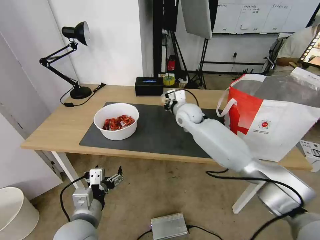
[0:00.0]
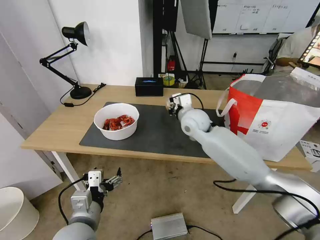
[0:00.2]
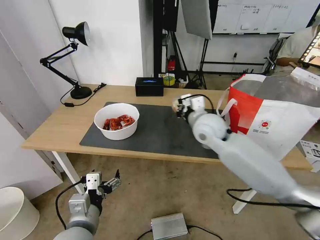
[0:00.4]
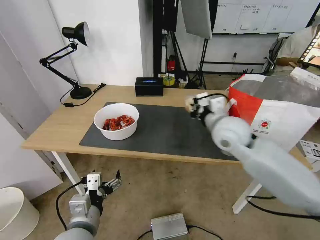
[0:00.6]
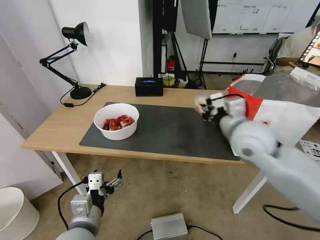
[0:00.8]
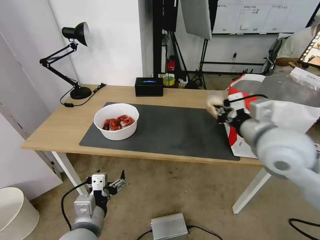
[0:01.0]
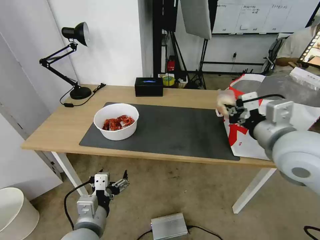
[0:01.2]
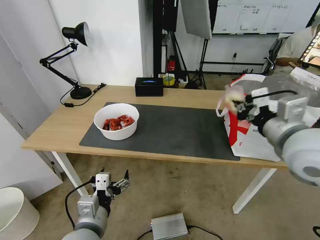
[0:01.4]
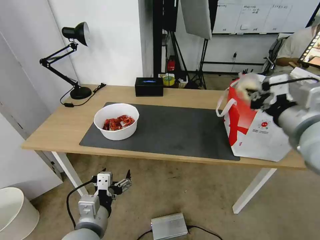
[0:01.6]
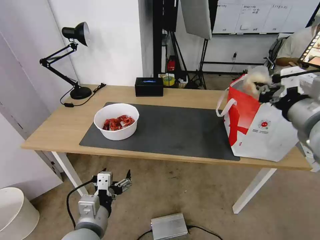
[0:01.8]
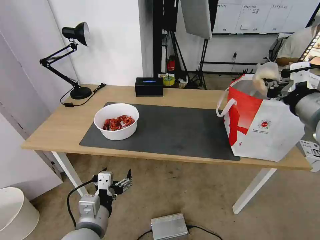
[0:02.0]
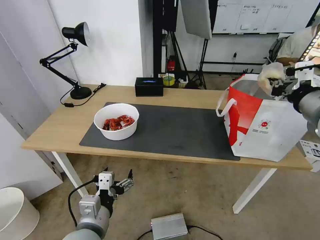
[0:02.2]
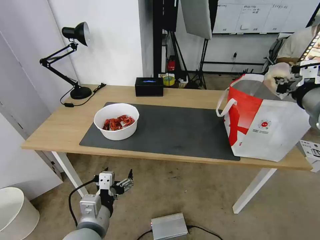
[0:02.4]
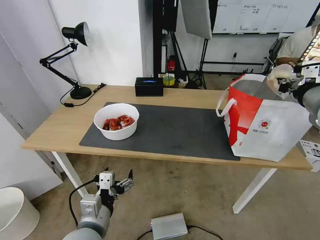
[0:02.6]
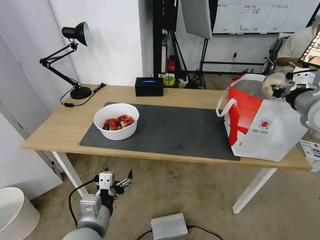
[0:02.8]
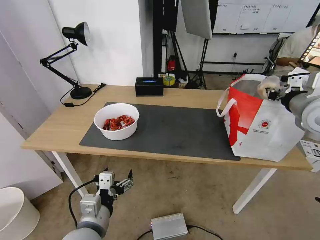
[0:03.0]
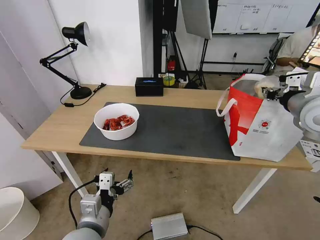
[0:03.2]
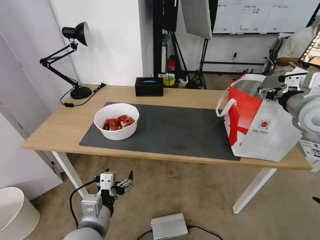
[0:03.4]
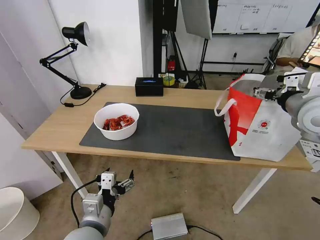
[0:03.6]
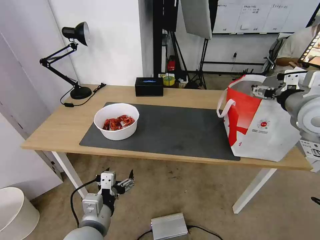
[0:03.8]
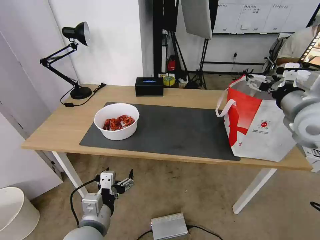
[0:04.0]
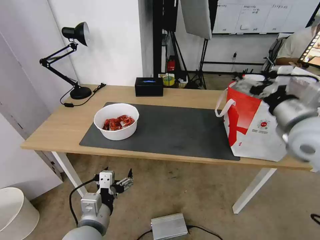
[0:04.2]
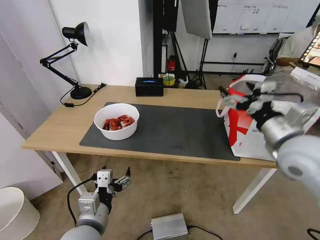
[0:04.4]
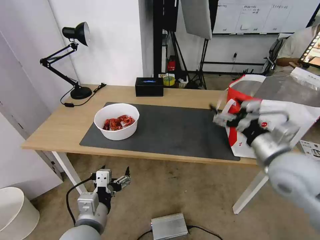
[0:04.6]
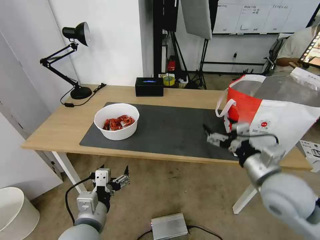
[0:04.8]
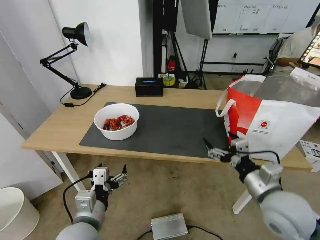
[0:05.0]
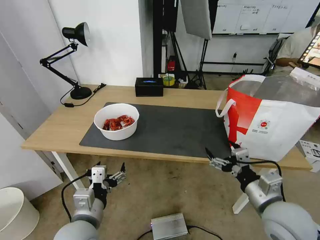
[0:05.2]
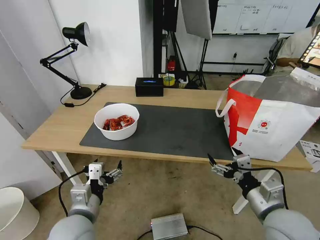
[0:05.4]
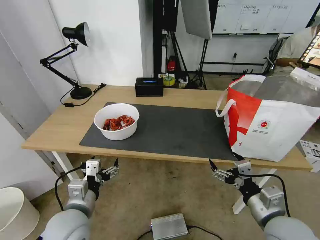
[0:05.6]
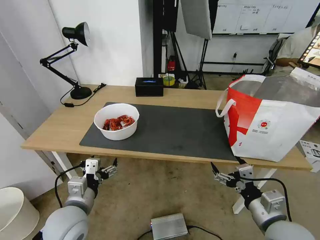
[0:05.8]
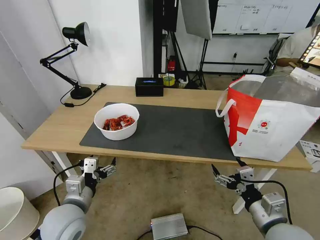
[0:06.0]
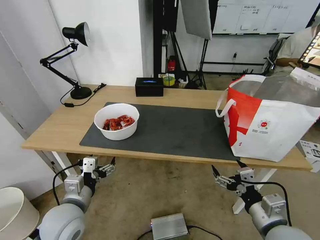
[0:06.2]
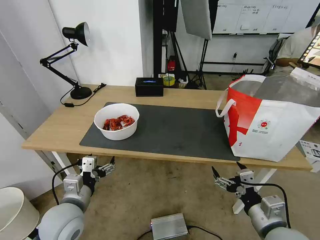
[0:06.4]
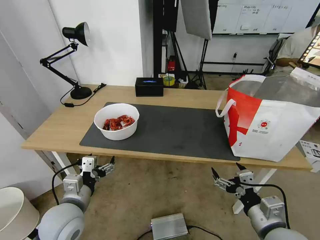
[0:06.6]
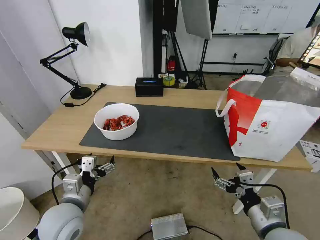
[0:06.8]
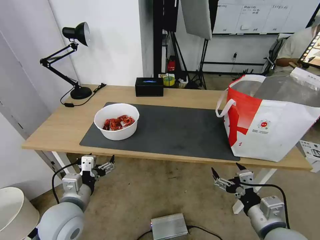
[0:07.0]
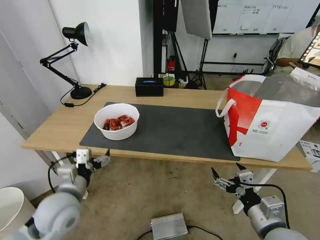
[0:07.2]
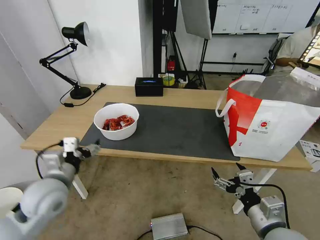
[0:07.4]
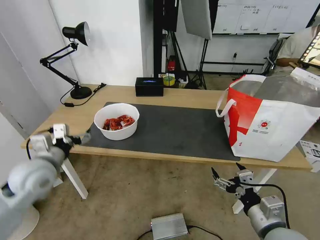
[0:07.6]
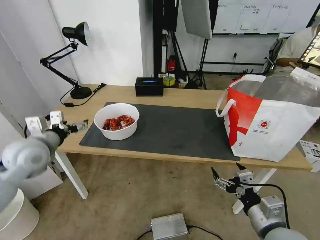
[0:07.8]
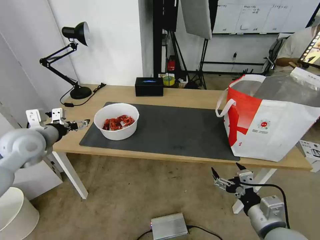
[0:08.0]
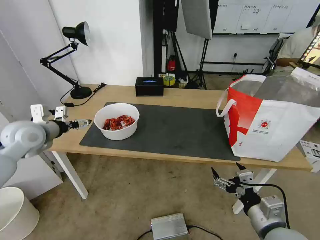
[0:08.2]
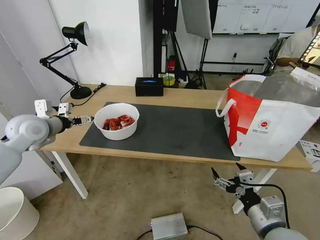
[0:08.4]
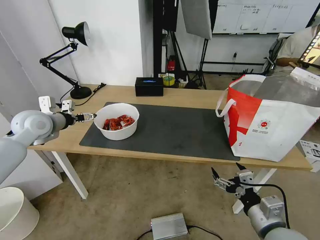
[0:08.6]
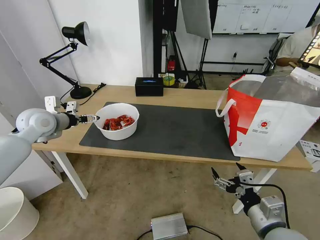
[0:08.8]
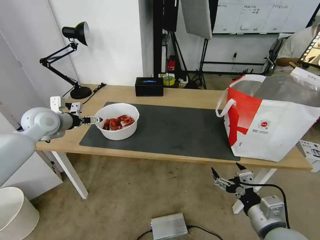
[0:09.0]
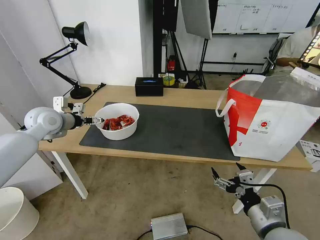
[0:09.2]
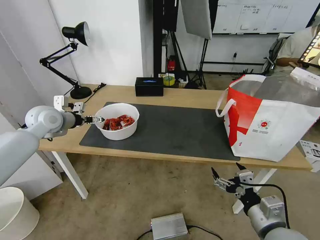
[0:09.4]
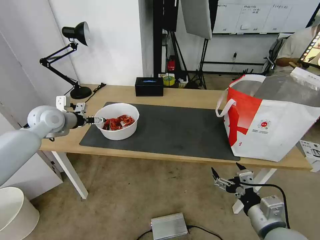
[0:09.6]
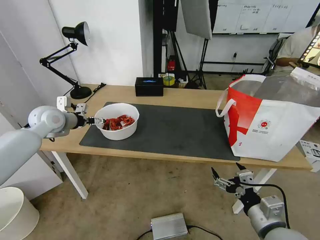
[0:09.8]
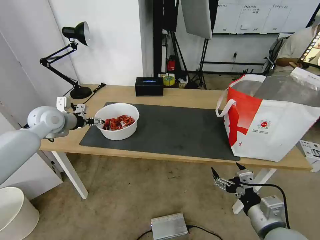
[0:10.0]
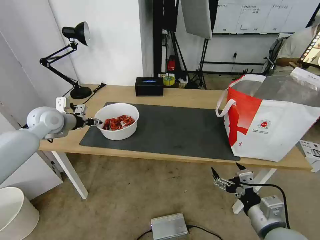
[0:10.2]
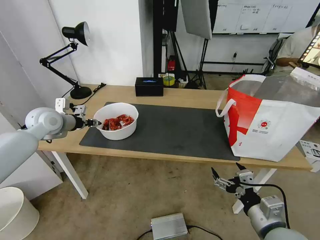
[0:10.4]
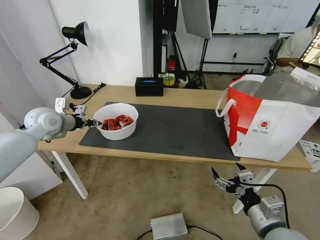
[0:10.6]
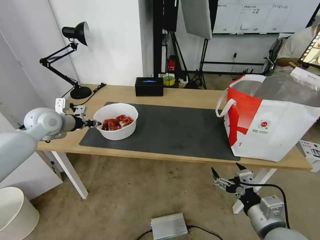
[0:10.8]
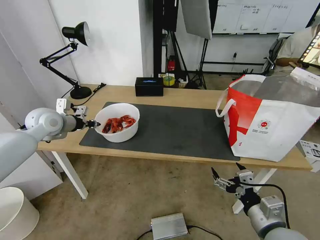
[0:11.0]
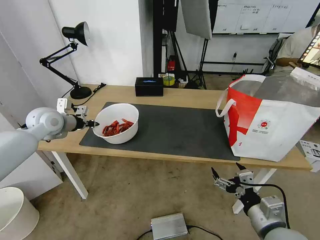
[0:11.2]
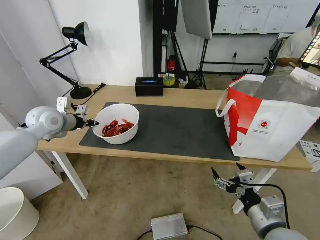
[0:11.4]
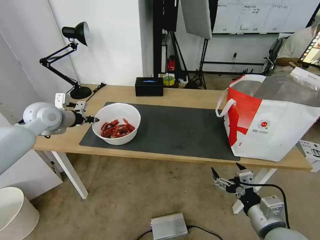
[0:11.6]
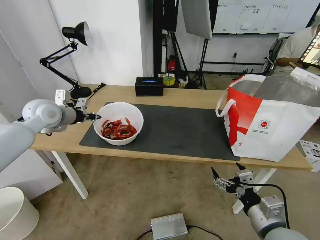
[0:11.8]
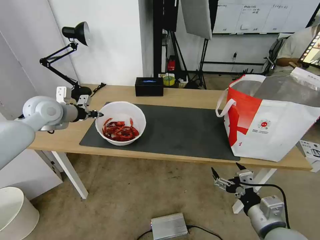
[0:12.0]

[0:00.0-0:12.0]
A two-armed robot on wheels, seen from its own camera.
Task of the whole recording: Pick up the trash from the table and place it into the takeout bag.
0:00.0 to 0:01.6: The right gripper travels backward, to the right and upward by some 35 cm.
0:01.6 to 0:03.0: The right gripper moves forward and to the right, roughly 15 cm.
0:03.0 to 0:04.4: The right gripper is displaced backward, to the left and downward by about 15 cm, and opens up.
0:04.4 to 0:06.0: The left gripper heads to the left and forward, covering about 10 cm. The right gripper shifts some 20 cm downward and backward.
0:06.0 to 0:07.6: The left gripper moves upward, forward and to the left, about 10 cm.
0:07.6 to 0:09.0: The left gripper travels forward by roughly 20 cm.
0:09.0 to 0:10.4: The left gripper closes.
0:10.4 to 0:12.0: The grippers make only small movements.

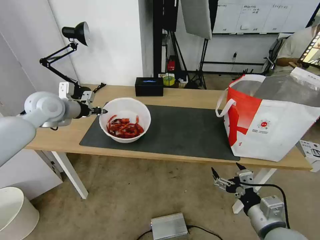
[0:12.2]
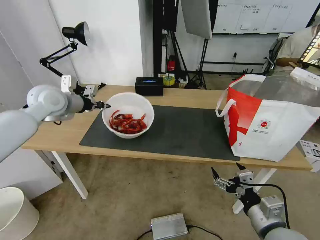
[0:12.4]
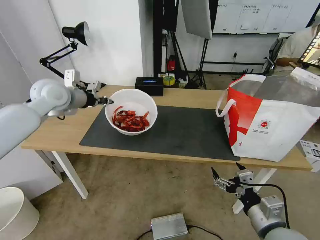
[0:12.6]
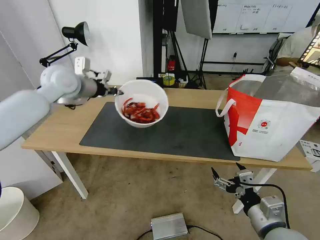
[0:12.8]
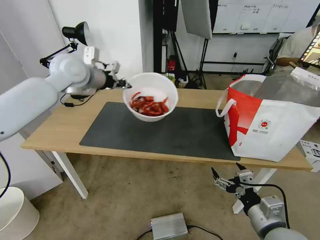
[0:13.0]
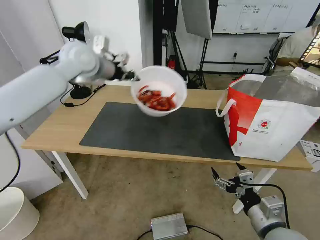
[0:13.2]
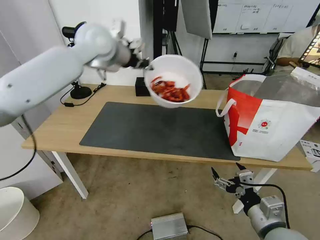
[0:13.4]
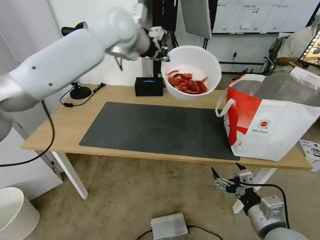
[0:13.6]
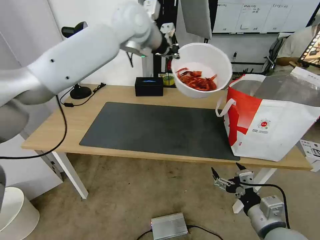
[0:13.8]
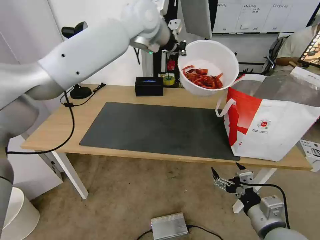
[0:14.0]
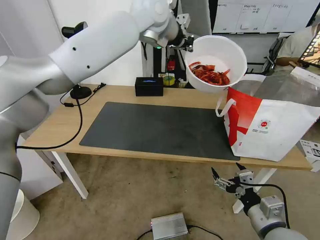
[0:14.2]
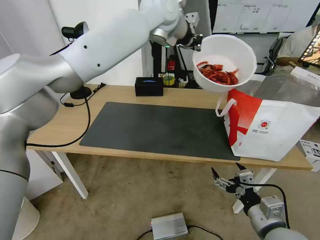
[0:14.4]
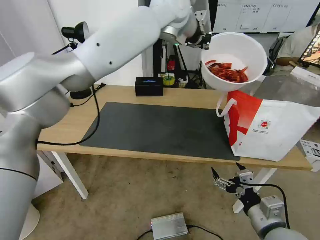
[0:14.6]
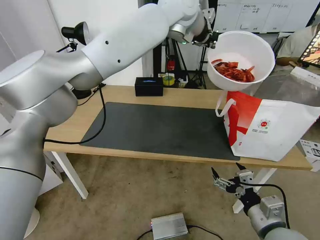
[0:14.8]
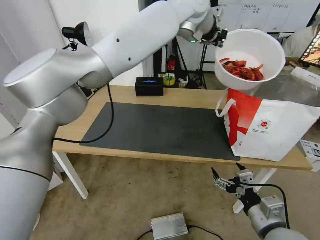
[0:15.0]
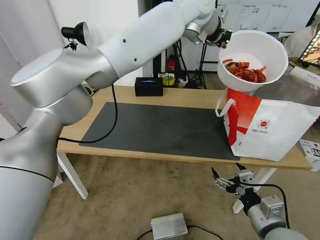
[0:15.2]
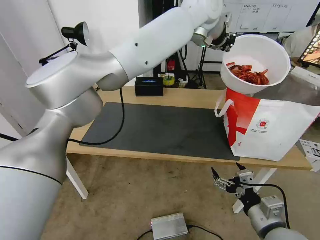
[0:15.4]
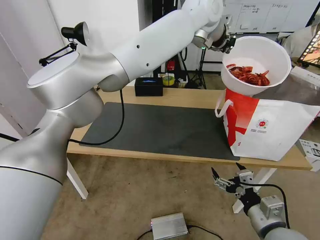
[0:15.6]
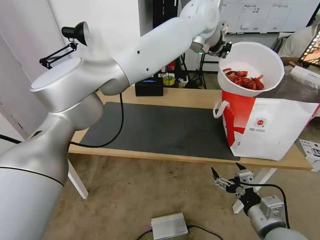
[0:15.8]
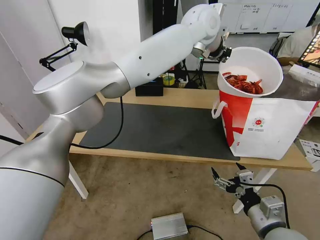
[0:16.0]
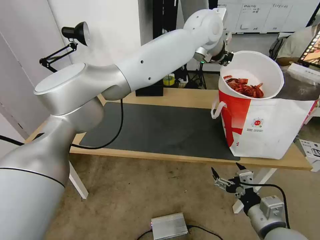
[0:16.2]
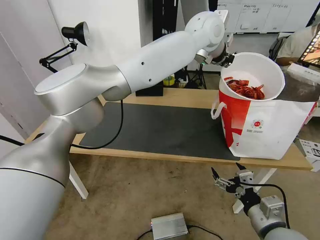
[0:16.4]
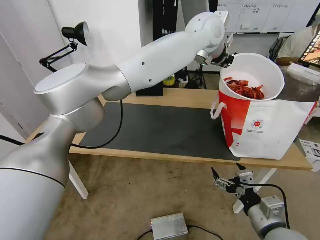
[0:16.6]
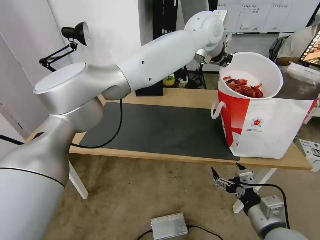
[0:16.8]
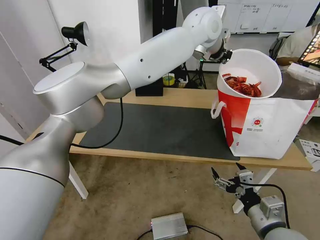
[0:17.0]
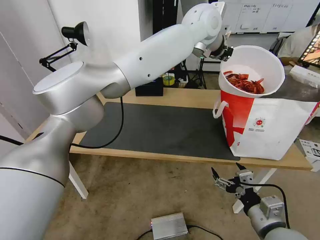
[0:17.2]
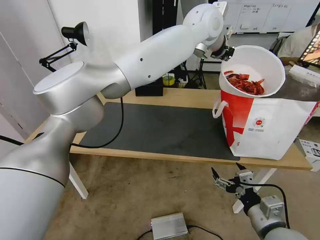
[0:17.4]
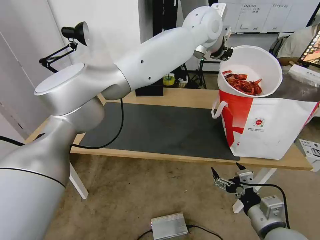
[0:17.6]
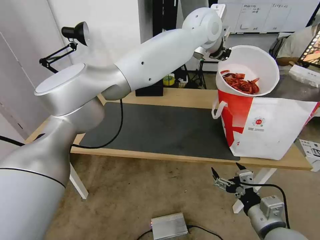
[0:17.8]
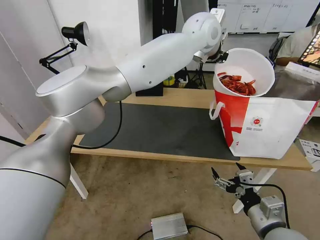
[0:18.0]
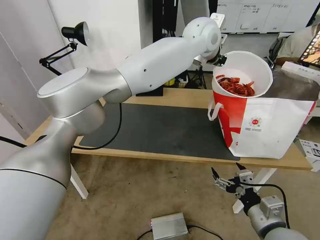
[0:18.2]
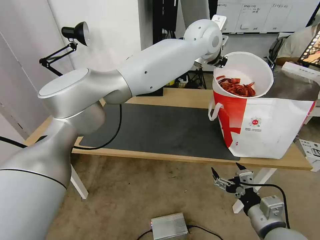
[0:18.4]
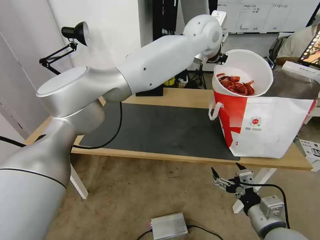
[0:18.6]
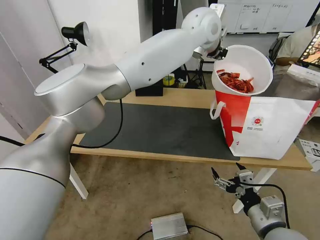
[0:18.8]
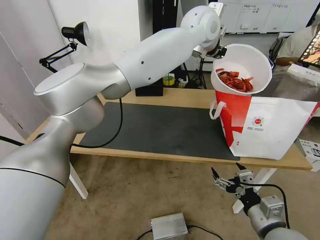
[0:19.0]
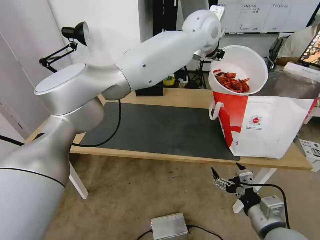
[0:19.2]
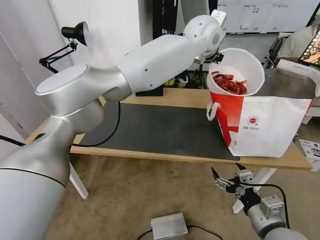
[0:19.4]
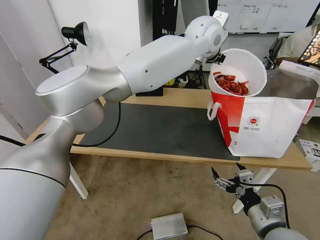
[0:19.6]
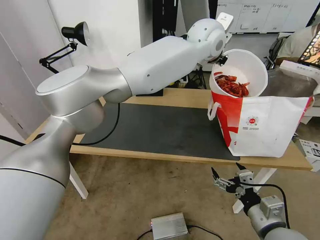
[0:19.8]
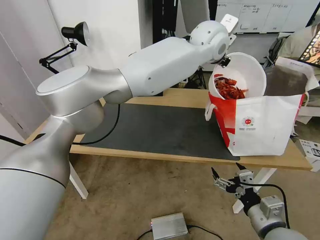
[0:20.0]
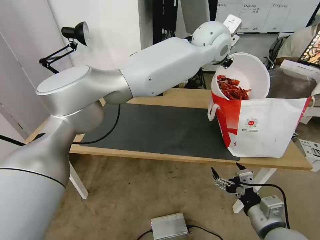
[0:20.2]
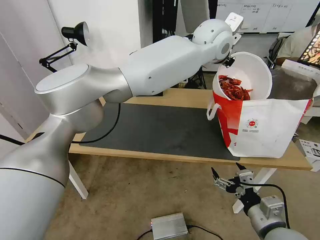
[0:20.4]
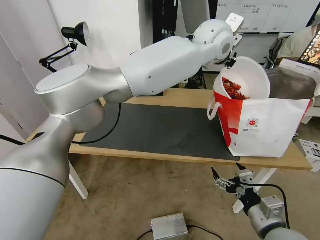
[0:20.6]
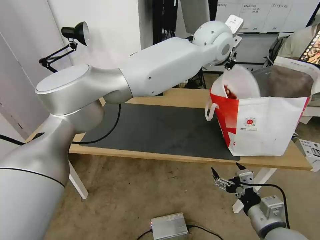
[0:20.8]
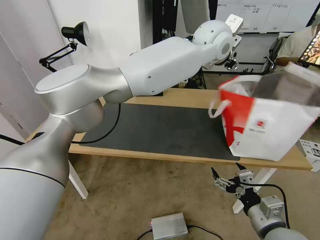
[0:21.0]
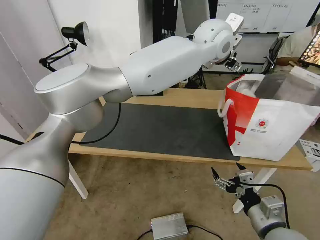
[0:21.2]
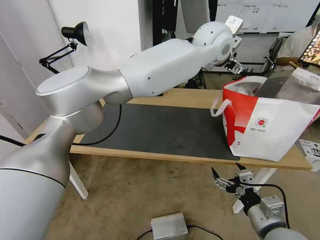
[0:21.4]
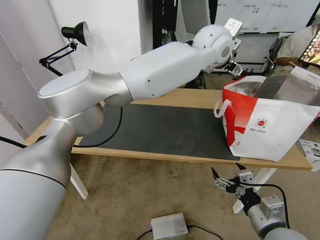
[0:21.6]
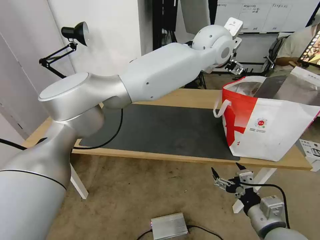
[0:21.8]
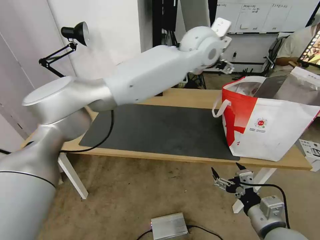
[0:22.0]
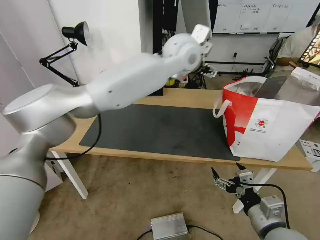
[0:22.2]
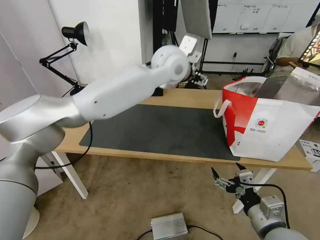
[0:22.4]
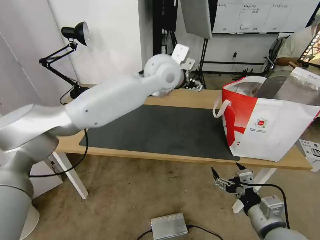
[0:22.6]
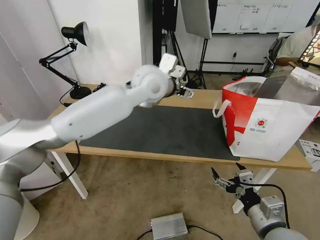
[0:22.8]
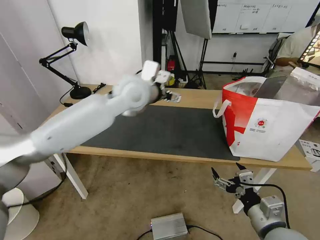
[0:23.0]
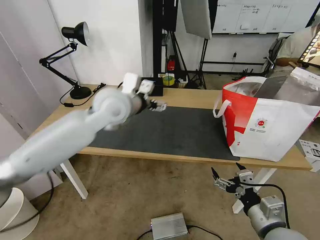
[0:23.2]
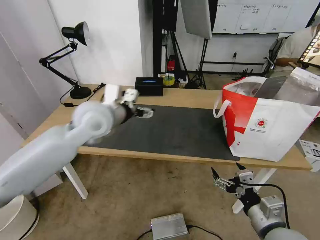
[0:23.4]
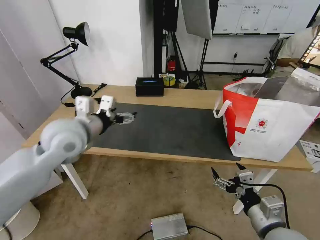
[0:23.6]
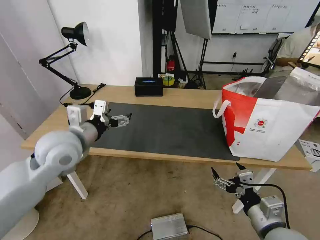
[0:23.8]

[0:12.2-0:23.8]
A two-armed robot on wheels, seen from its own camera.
Task of the whole recording: Pick up the trash from the table and place it into the takeout bag.
0:12.2 to 0:13.6: The left gripper travels to the right and upward by about 30 cm.
0:13.6 to 0:15.0: The left gripper moves to the right, approximately 15 cm.
0:15.0 to 0:16.6: The left gripper moves downward and to the right, some 10 cm.
0:16.6 to 0:19.4: The grippers make only small movements.
0:19.4 to 0:21.0: The left gripper opens up.
0:21.0 to 0:22.4: The left gripper heads to the left, covering approximately 10 cm, and opens its fingers.
0:22.4 to 0:23.8: The left gripper is displaced to the left, backward and downward by approximately 35 cm.
